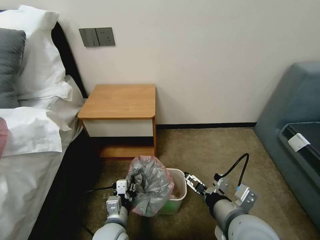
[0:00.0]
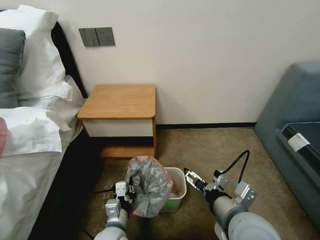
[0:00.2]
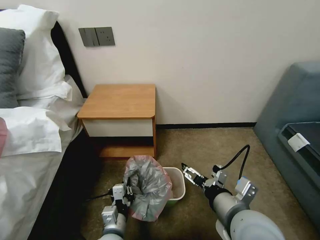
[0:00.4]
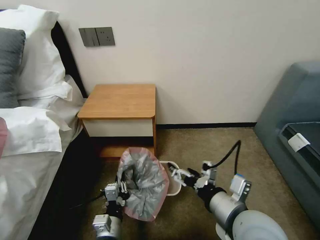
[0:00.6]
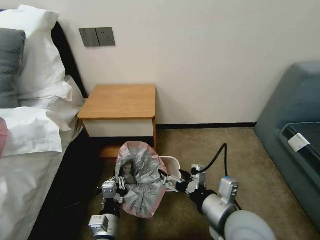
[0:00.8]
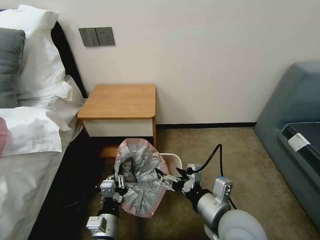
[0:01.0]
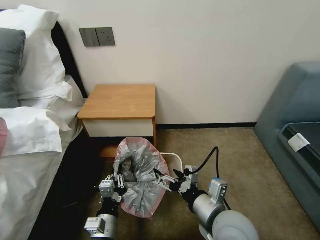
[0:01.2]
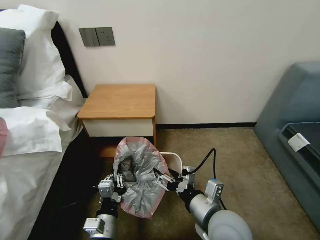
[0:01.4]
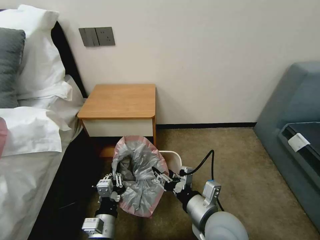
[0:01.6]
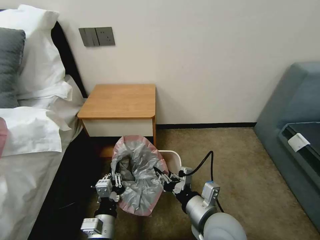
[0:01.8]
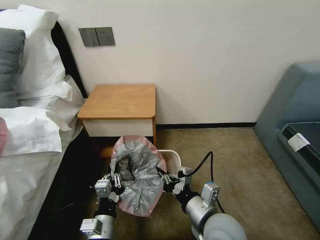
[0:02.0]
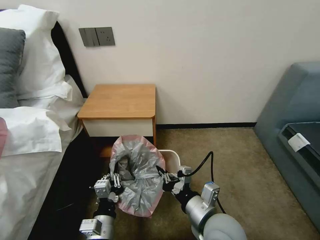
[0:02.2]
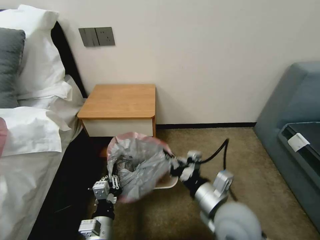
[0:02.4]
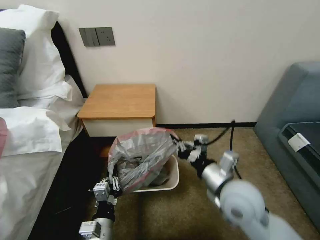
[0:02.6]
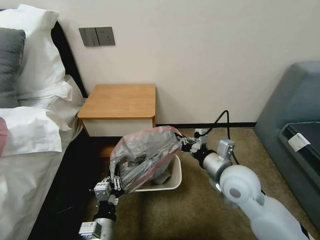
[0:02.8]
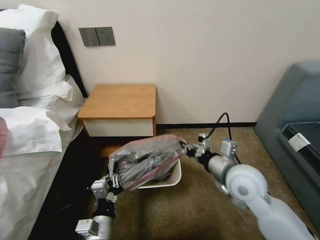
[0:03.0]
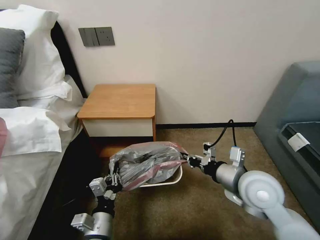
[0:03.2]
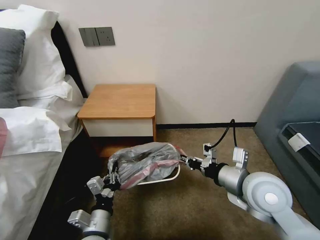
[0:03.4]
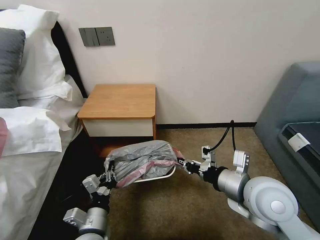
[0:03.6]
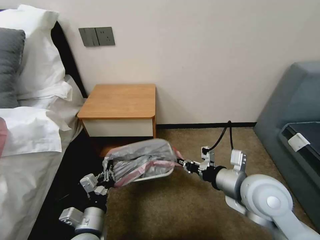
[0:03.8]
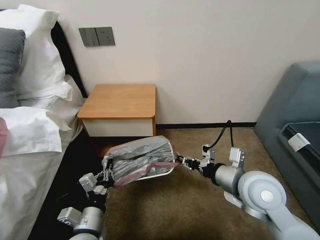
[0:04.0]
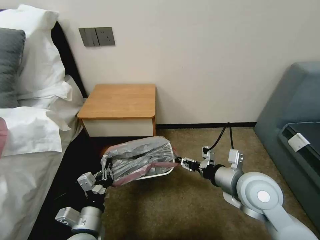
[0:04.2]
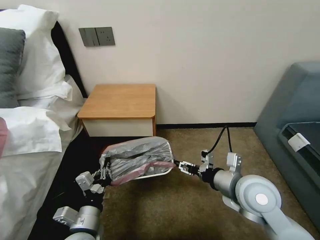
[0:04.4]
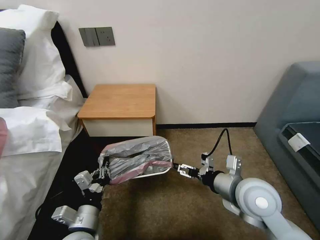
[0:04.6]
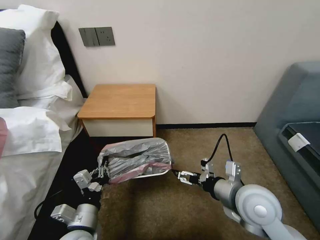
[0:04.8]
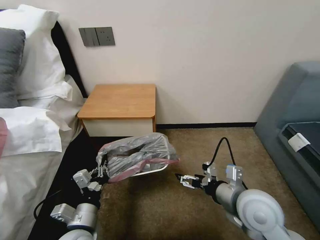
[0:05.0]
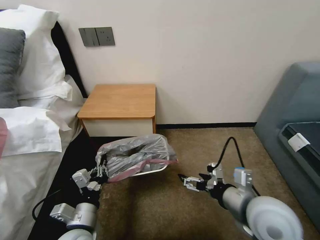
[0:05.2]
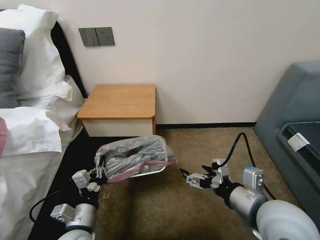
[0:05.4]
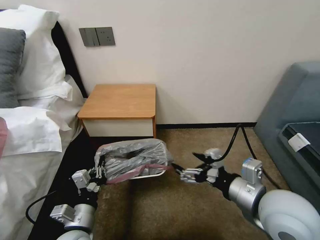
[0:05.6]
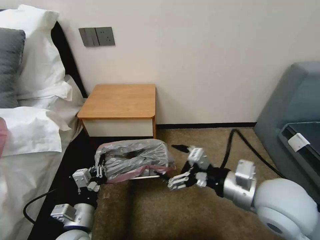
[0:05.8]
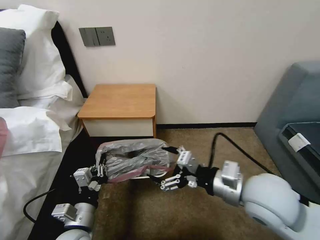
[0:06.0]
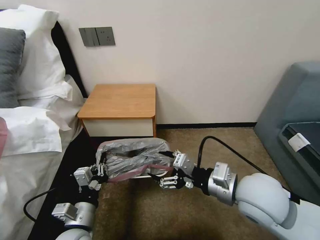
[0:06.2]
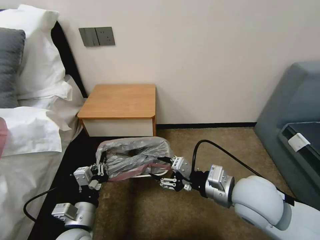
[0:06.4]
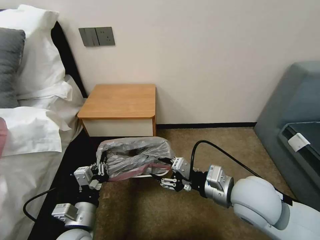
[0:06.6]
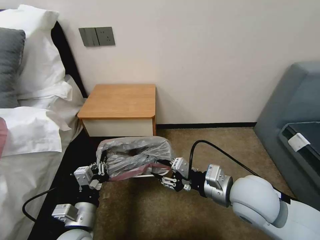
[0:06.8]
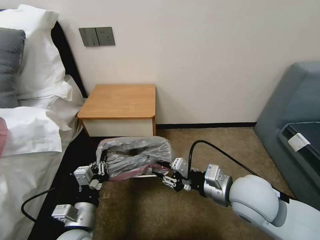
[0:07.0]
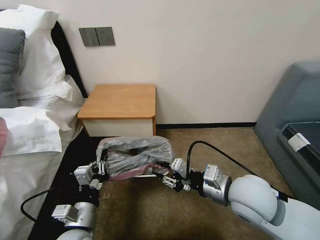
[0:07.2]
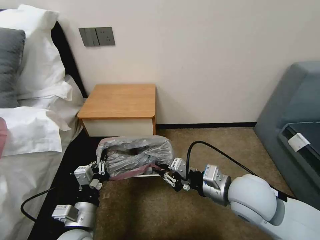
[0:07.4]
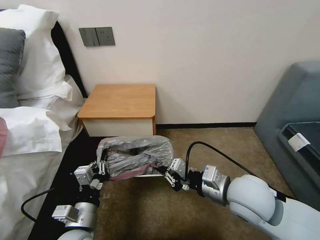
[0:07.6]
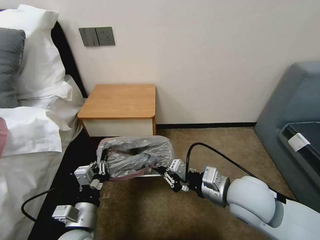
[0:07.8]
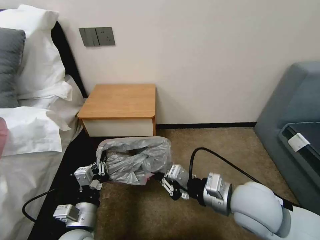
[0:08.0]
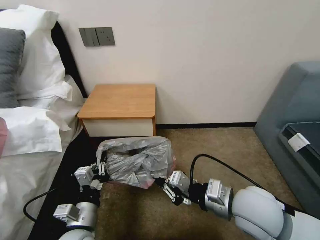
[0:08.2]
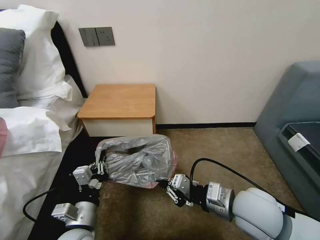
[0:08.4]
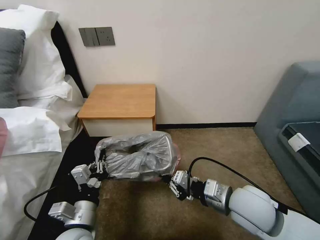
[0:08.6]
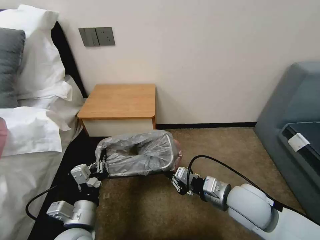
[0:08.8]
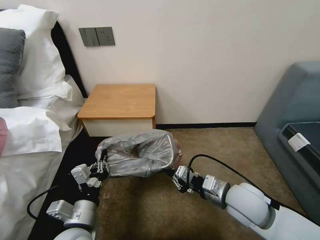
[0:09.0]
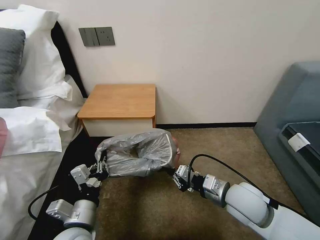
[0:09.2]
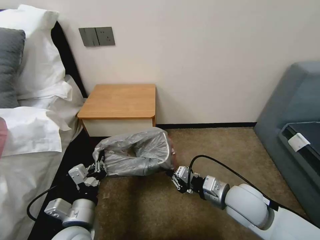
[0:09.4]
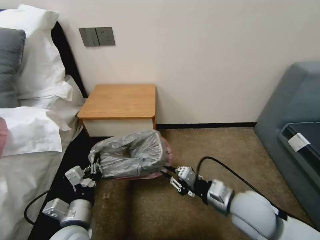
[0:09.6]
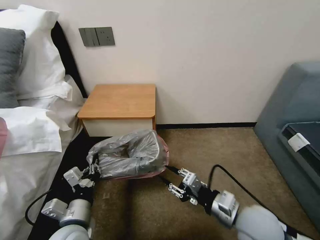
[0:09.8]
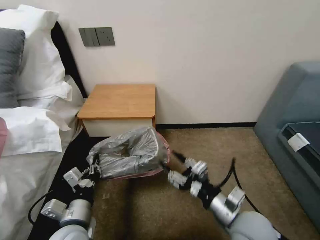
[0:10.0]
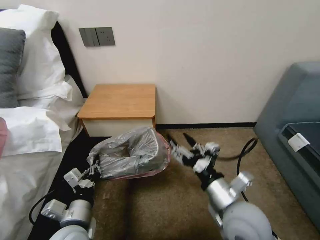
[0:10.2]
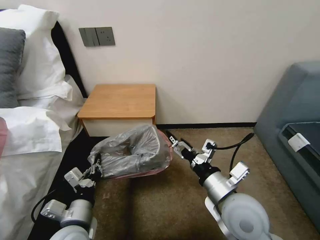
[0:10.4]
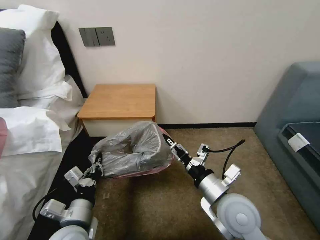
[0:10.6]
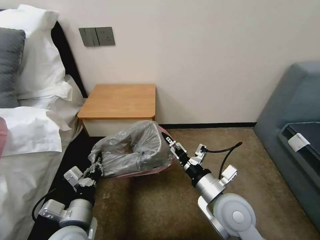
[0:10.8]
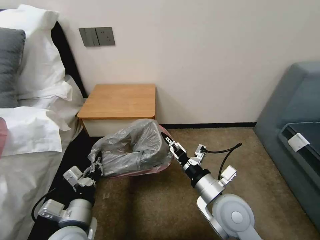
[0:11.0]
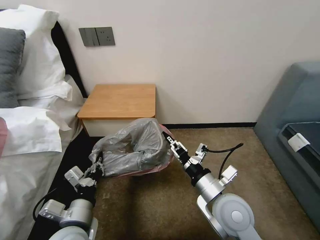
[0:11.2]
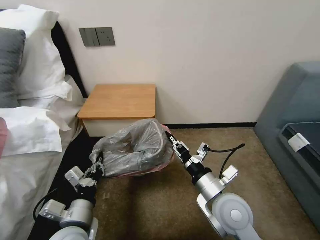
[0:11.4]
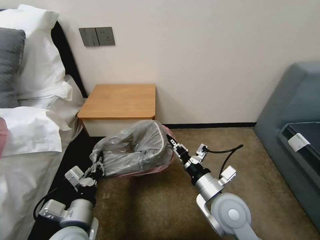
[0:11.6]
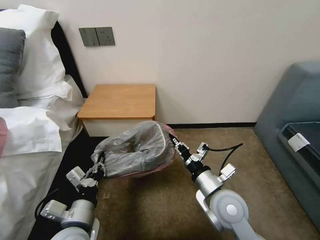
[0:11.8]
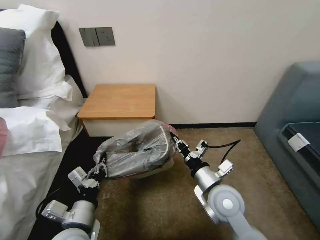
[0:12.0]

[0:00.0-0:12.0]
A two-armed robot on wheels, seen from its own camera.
Task of the whole recording: Pick up the garbage bag from the table and place it over the trash can.
0:00.0 to 0:01.6: The left gripper shifts by roughly 5 cm; the right gripper ends up some 5 cm from where it was, and closes up.
0:01.6 to 0:03.0: The right gripper travels forward and to the right by roughly 15 cm, and closes its fingers.
0:03.0 to 0:04.4: The left gripper ends up about 5 cm from where it was. Meanwhile the right gripper opens its fingers.
0:04.4 to 0:06.0: The right gripper is displaced upward by approximately 5 cm.
0:06.0 to 0:07.6: The right gripper closes.
0:07.6 to 0:09.0: The right gripper heads downward, covering approximately 5 cm.
0:09.0 to 0:10.4: The right gripper changes place by roughly 5 cm, and opens up.
0:10.4 to 0:12.0: The right gripper travels downward by about 5 cm, and closes.

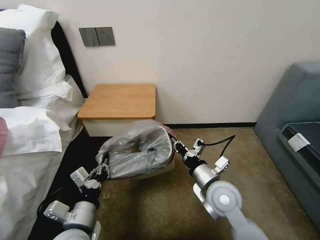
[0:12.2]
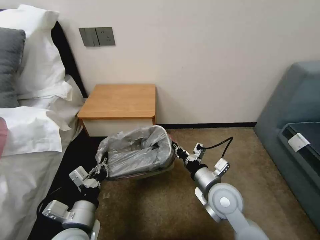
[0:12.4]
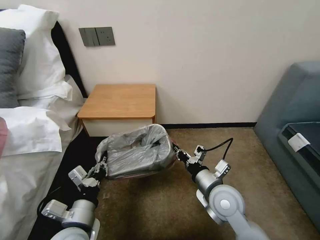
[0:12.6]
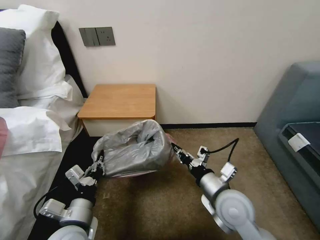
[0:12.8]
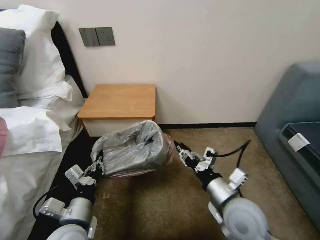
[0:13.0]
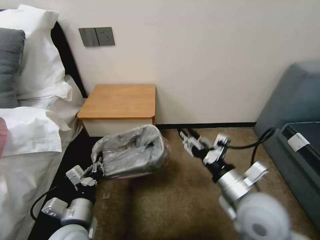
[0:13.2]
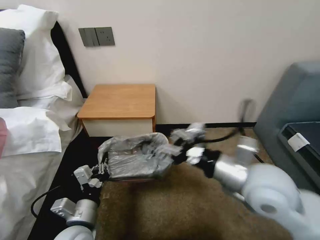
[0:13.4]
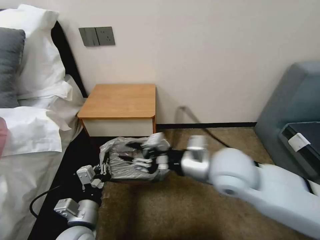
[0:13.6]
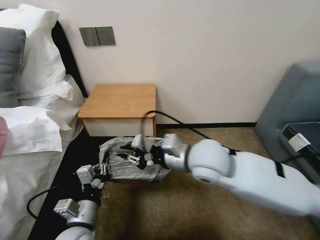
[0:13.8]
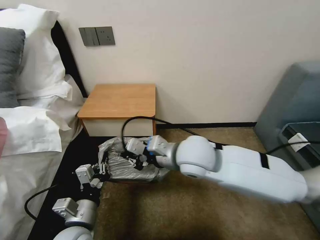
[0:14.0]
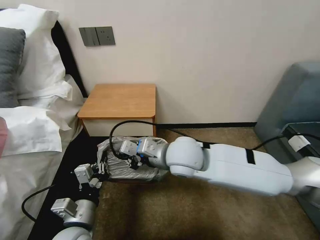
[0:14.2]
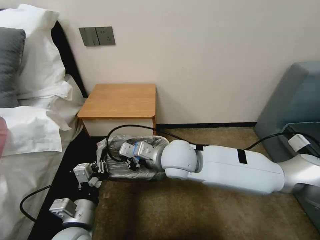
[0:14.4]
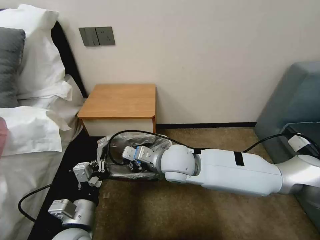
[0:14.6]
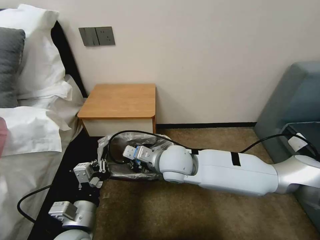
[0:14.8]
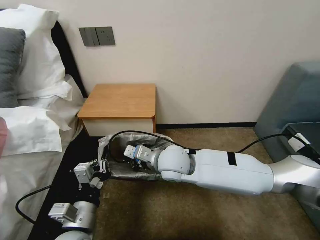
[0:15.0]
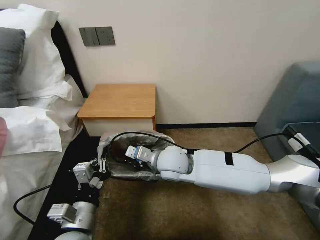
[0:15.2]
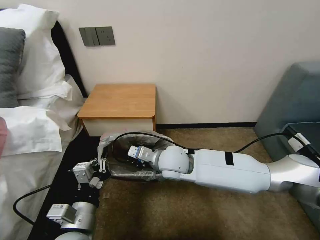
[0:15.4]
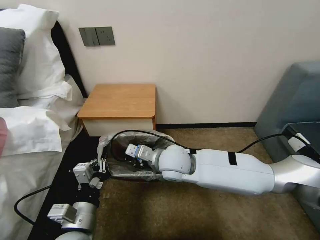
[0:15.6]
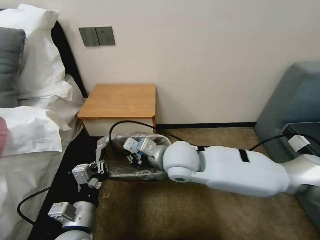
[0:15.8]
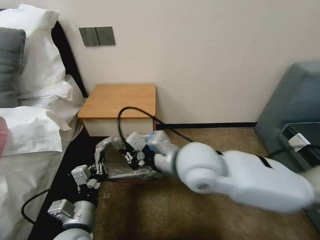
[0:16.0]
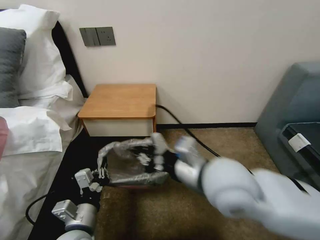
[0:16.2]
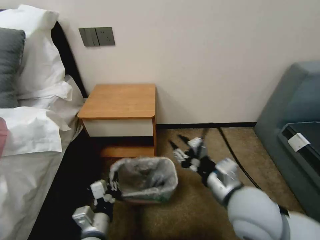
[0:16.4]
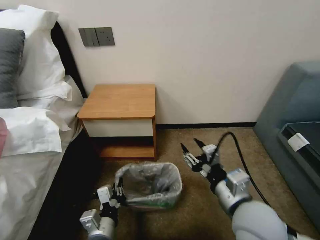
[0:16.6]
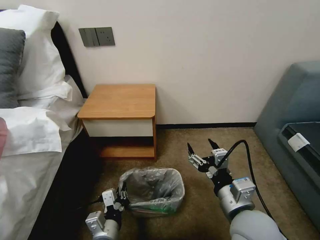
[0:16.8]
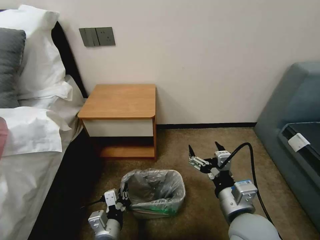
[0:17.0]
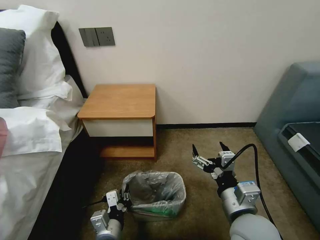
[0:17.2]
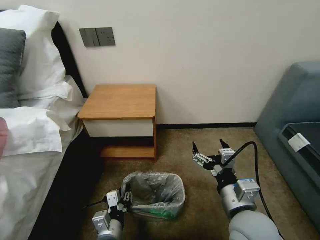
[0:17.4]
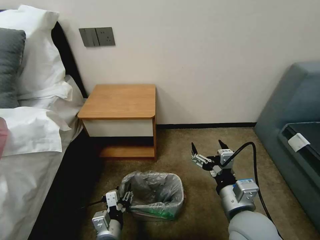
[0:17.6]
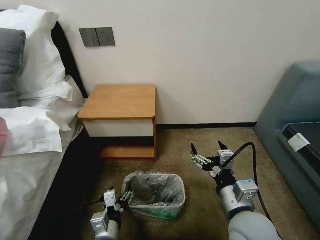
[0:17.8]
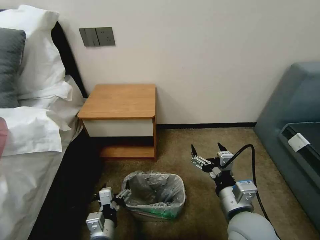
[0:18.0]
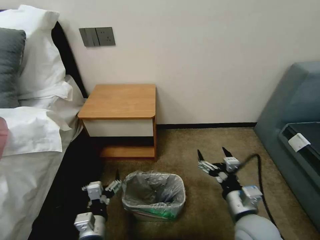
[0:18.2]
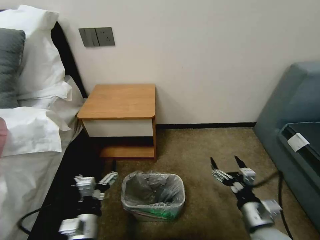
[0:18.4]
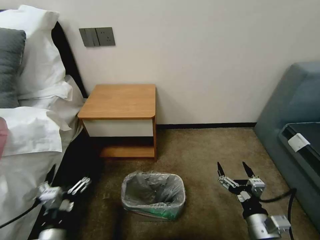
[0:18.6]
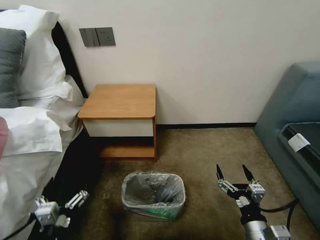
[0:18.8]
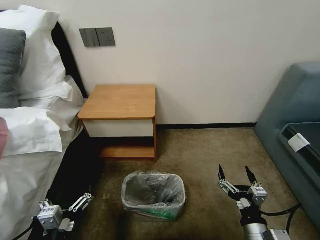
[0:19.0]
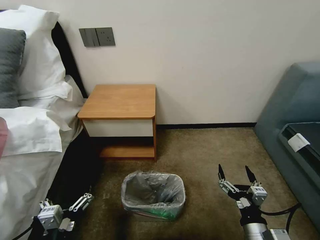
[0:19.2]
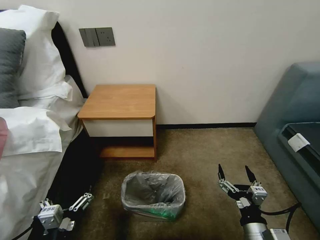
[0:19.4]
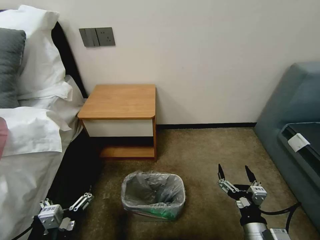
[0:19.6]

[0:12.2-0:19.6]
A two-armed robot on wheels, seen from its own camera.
Task of the whole recording: Pick up the garbage bag from the table and place it over the trash can.
0:12.2 to 0:13.6: The right gripper moves upward, some 15 cm, and opens its fingers.
0:13.6 to 0:15.2: The right gripper moves to the left, downward and forward, some 15 cm, and closes.
0:15.2 to 0:16.6: The left gripper heads downward, covering about 10 cm; the right gripper is displaced backward and to the right by some 25 cm, and opens.
0:16.6 to 0:18.2: The right gripper moves downward, roughly 10 cm, and opens; the left gripper opens.
0:18.2 to 0:19.6: The right gripper moves backward and downward, some 10 cm. Meanwhile the left gripper heads backward and to the left, covering about 10 cm.

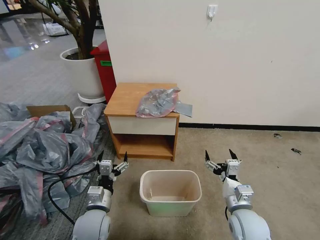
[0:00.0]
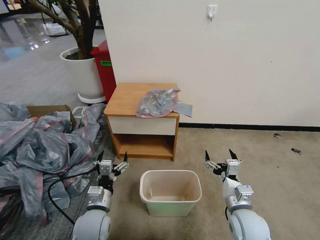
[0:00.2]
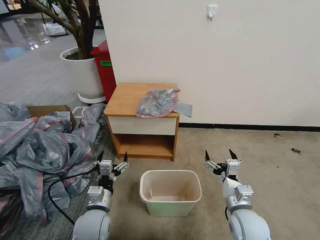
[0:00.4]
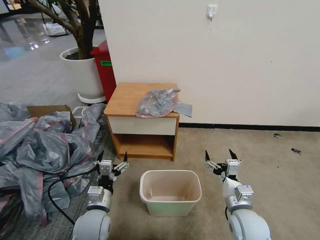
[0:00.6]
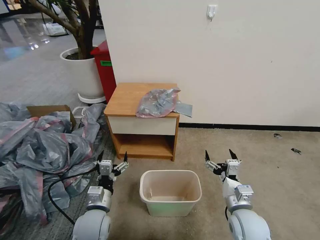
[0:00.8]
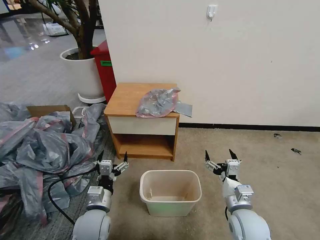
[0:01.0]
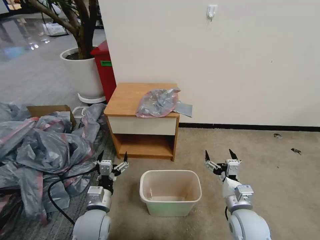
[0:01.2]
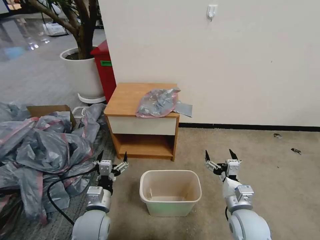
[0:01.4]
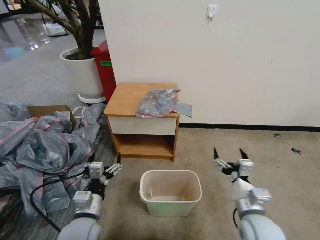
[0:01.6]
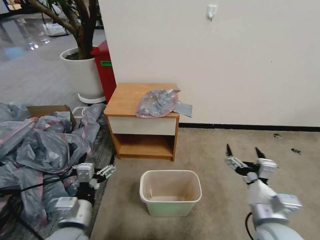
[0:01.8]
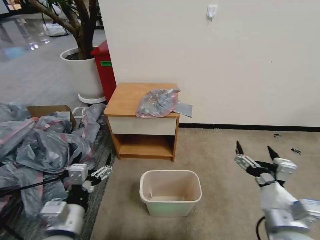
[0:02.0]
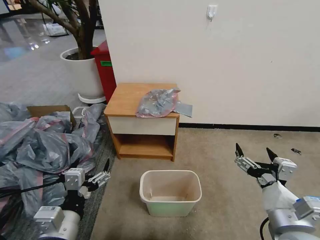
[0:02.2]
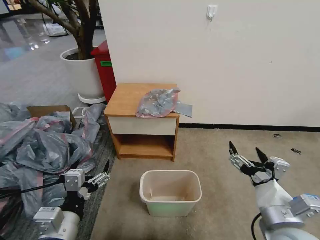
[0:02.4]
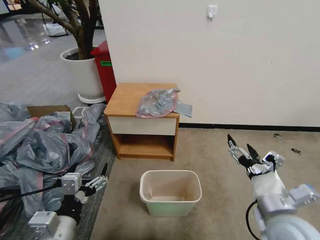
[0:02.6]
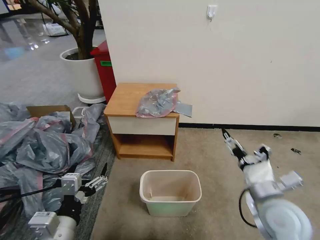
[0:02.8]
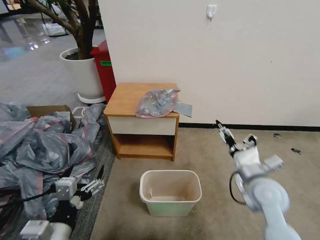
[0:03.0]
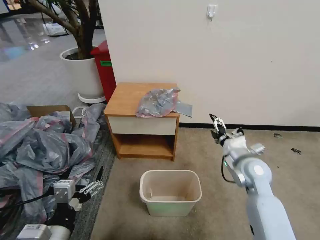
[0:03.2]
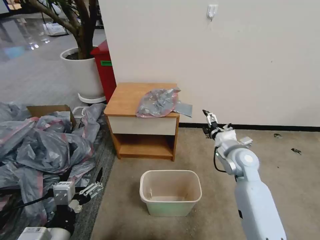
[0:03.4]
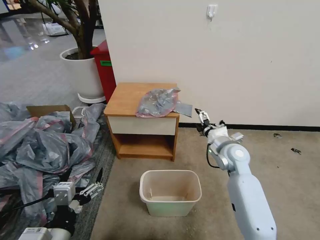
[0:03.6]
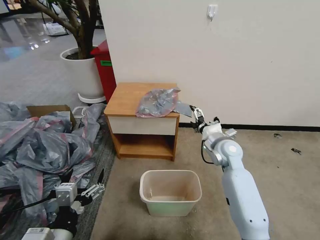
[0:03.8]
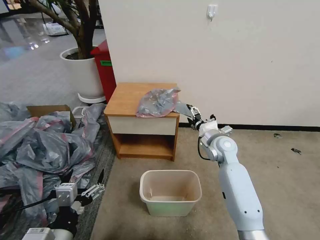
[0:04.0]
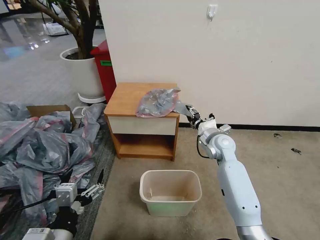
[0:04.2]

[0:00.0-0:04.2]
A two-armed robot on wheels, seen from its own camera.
Task of the whole recording: Pick up the garbage bag from the table and place it over the trash can.
0:01.4 to 0:02.8: The left gripper moves upward and backward, about 15 cm. Meanwhile the right gripper is displaced upward by about 10 cm.
0:02.8 to 0:04.2: The right gripper is displaced forward by about 25 cm, and closes its fingers.
